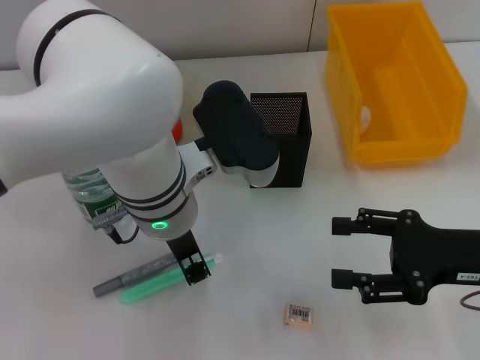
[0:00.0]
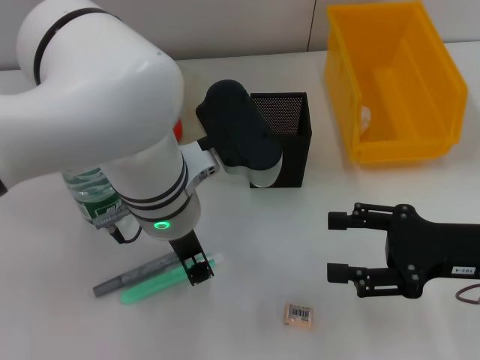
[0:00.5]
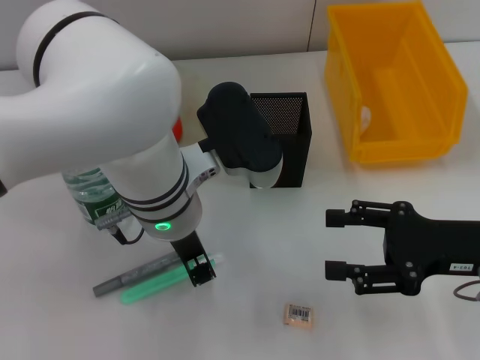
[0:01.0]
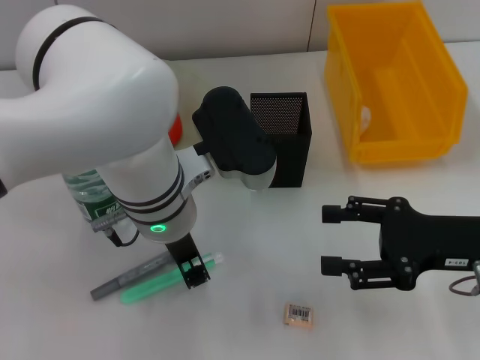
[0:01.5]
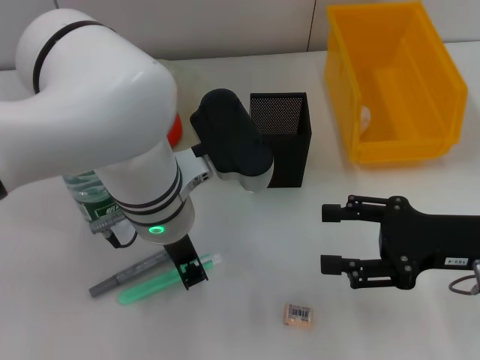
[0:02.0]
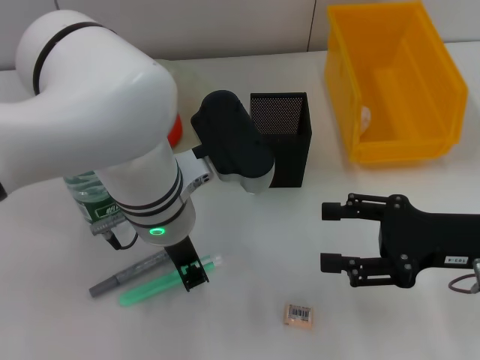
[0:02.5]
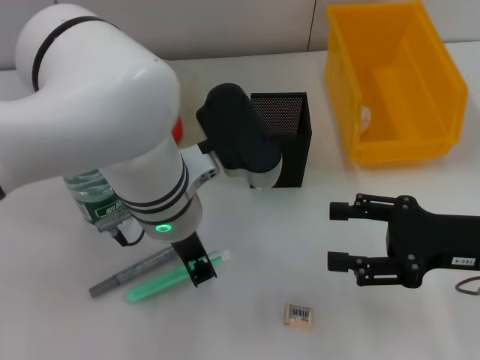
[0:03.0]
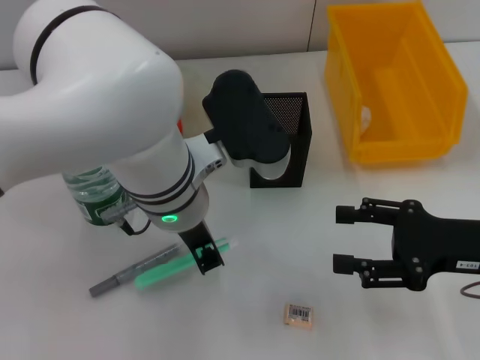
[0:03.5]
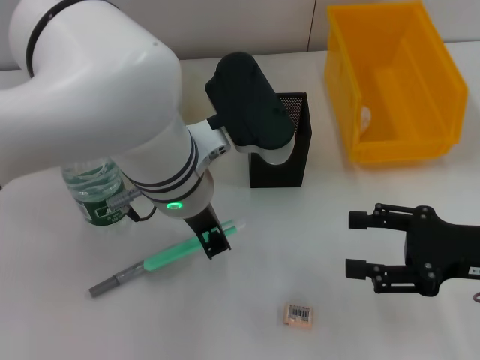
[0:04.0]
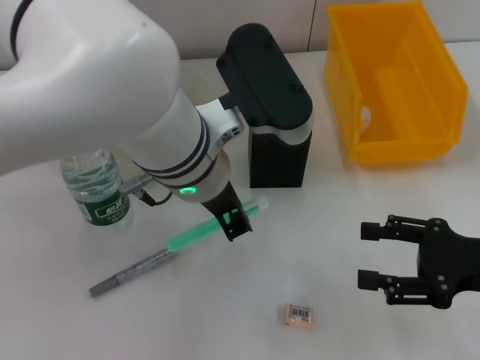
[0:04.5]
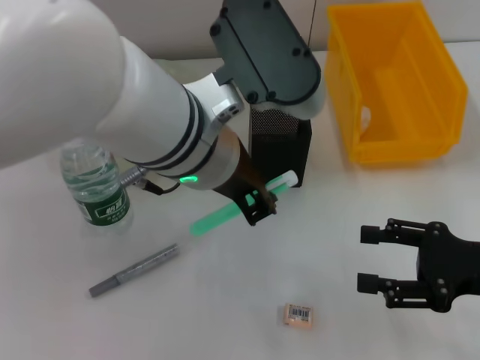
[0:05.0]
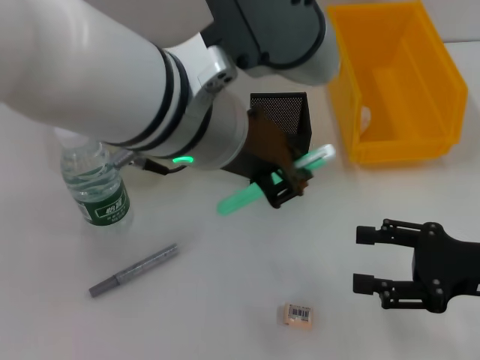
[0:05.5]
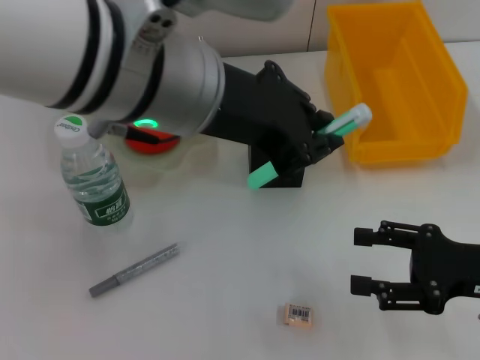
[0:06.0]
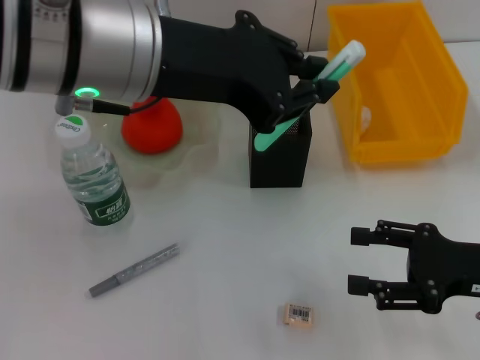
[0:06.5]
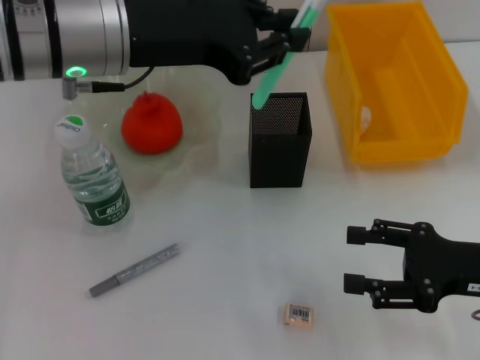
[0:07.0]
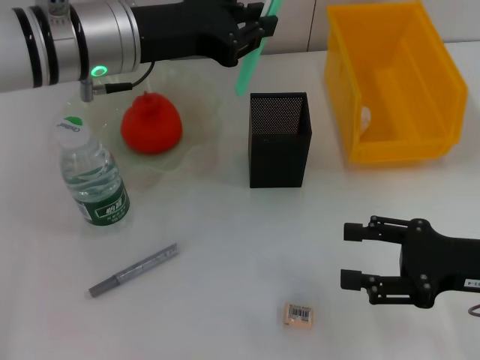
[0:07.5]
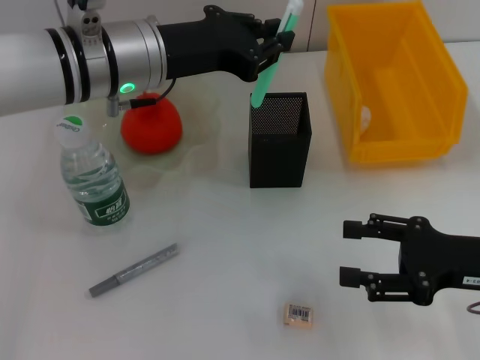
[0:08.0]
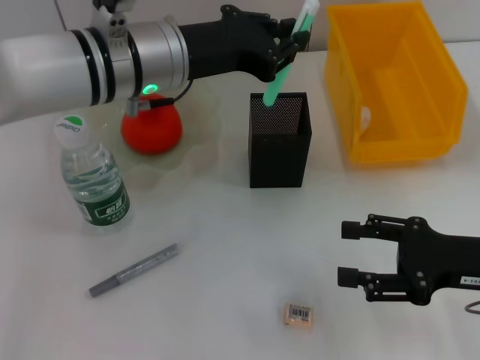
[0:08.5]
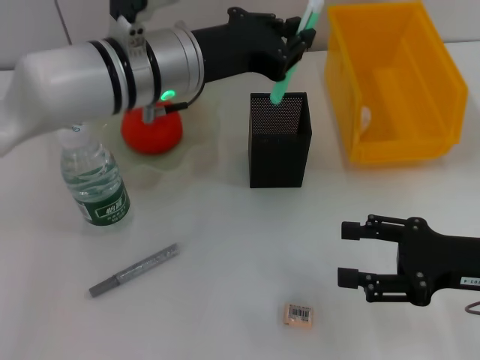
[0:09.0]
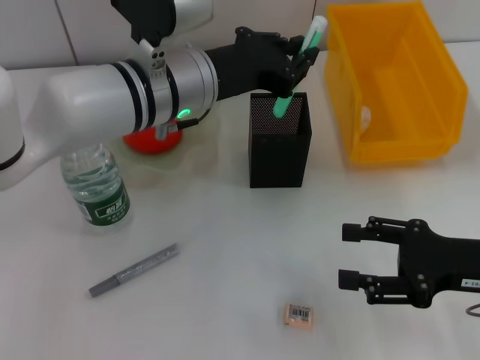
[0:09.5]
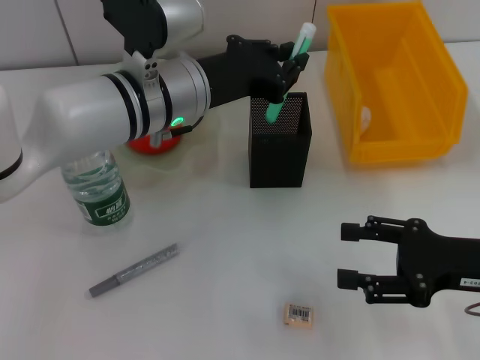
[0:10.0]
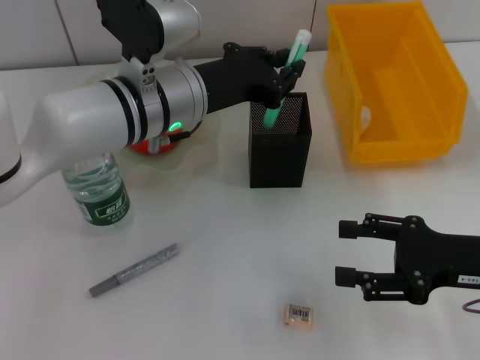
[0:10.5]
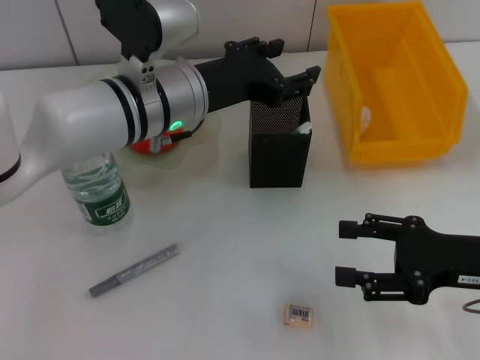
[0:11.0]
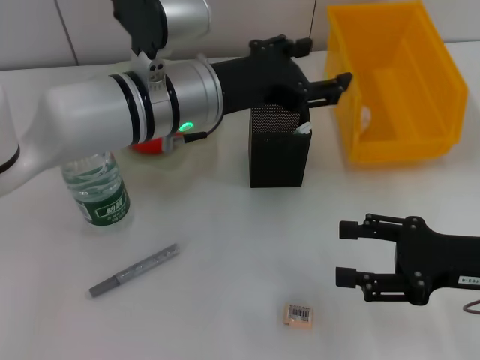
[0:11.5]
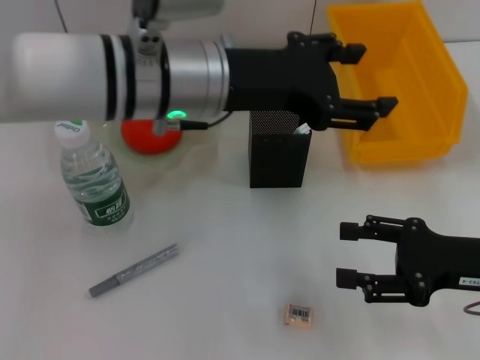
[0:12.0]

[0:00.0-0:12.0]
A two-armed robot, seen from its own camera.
Step, 0.0 to 2.0 s: Grab the blue utility knife with the left hand.
Step, 2.5 to 11.5 s: Place the blue utility knife into the pen holder with the left hand.
0.0 to 4.0 s: The grippers stay close to where they were, moving slightly.
4.0 to 6.0 s: The left gripper heads upward, covering approximately 10 cm.
6.0 to 8.0 s: The left gripper goes approximately 15 cm forward and downward.
8.0 to 10.0 s: The left gripper ends up roughly 5 cm from where it was.
10.0 to 12.0 s: The left gripper shifts roughly 5 cm upward, and opens.

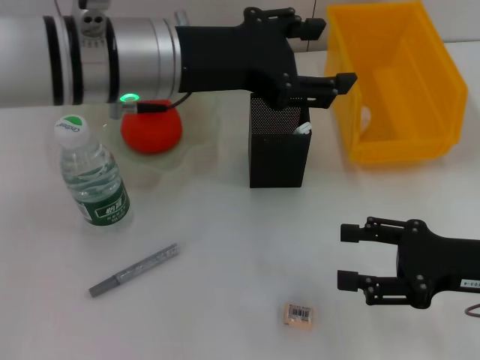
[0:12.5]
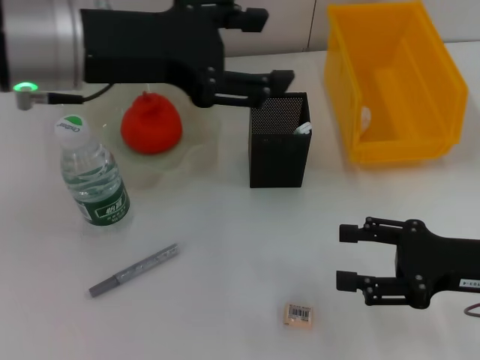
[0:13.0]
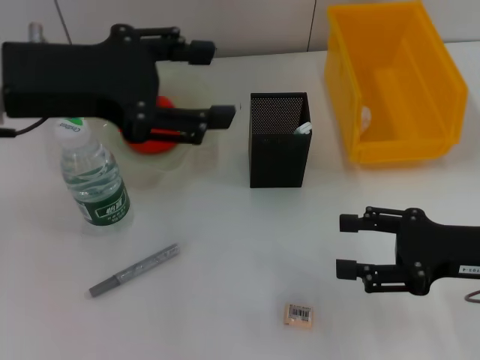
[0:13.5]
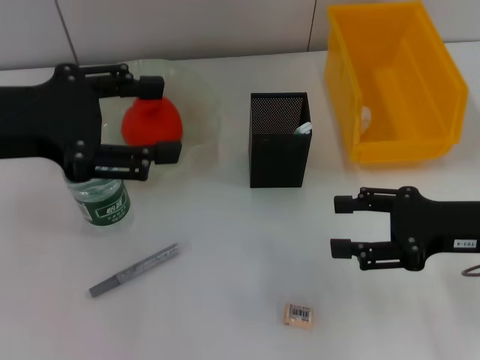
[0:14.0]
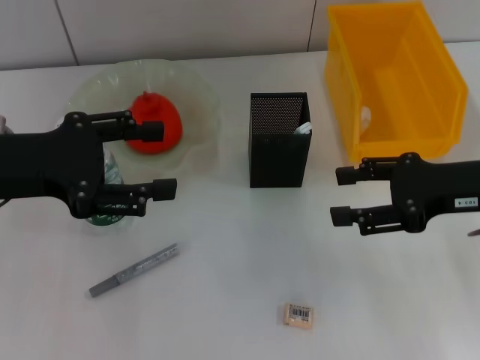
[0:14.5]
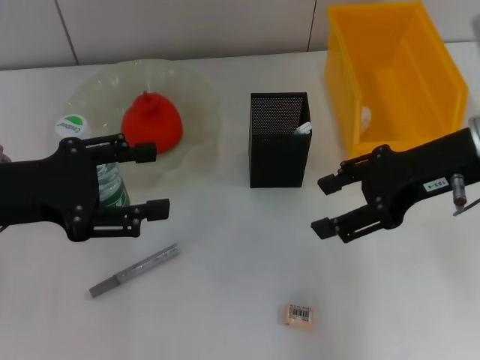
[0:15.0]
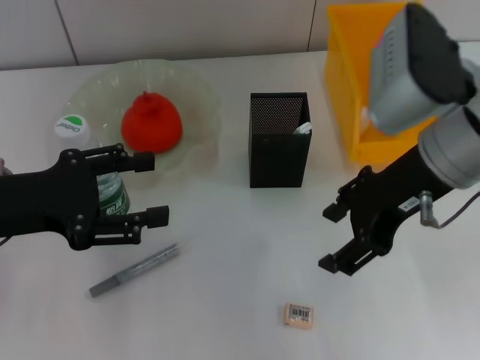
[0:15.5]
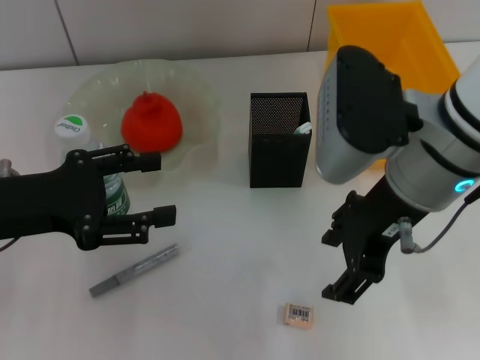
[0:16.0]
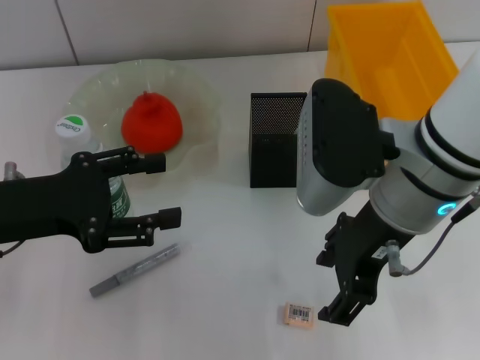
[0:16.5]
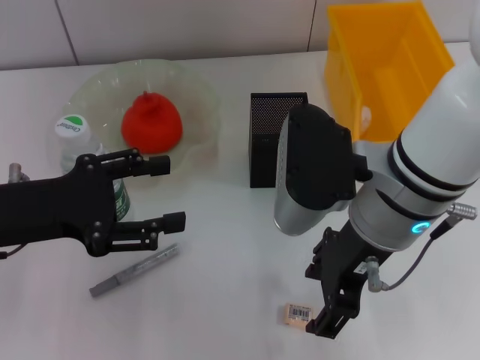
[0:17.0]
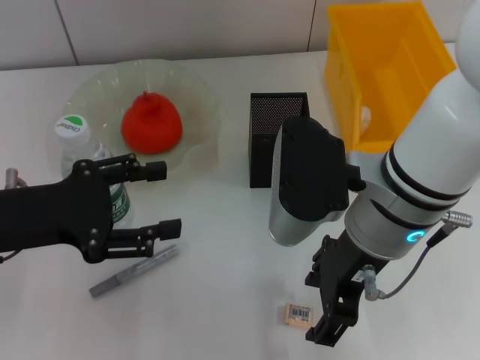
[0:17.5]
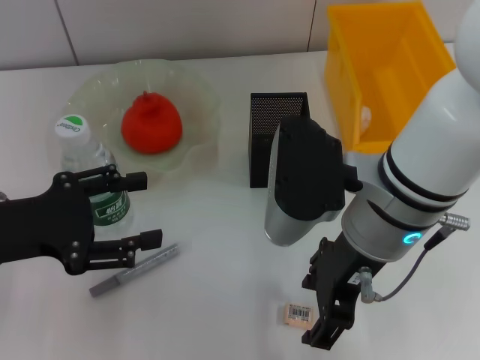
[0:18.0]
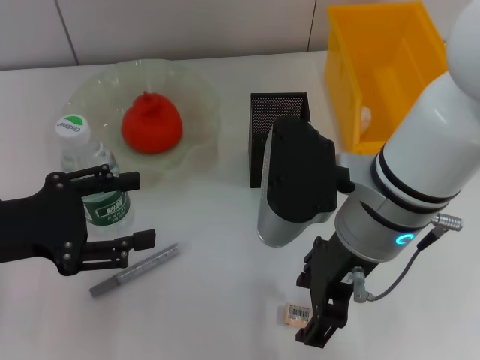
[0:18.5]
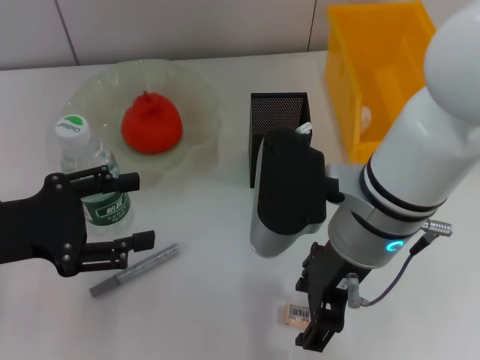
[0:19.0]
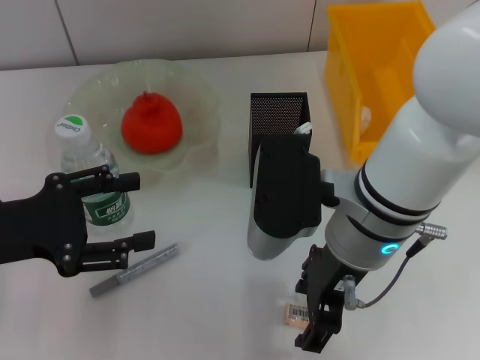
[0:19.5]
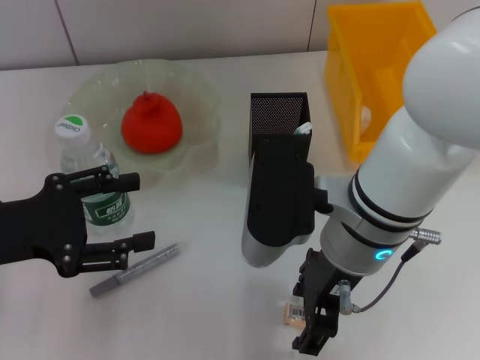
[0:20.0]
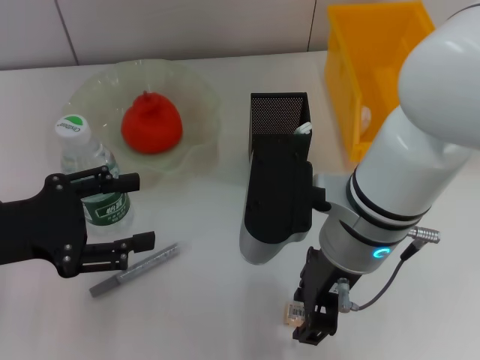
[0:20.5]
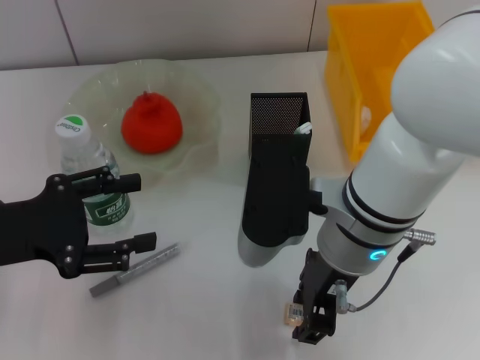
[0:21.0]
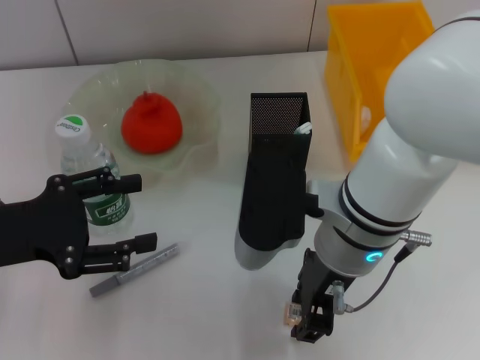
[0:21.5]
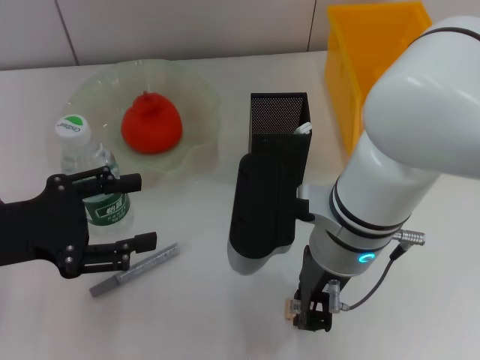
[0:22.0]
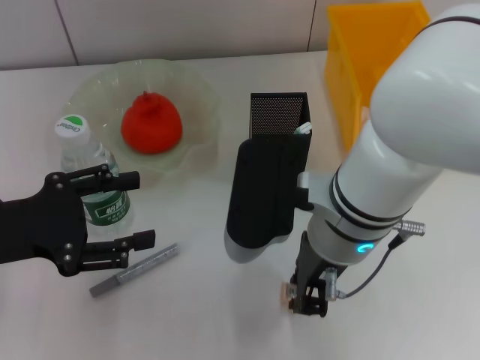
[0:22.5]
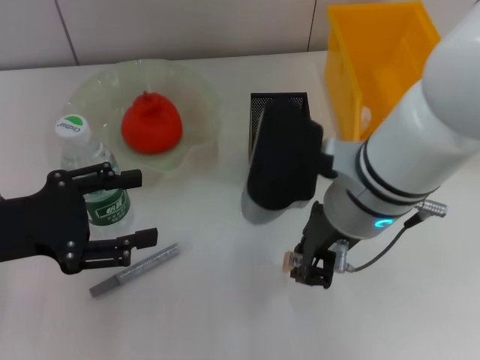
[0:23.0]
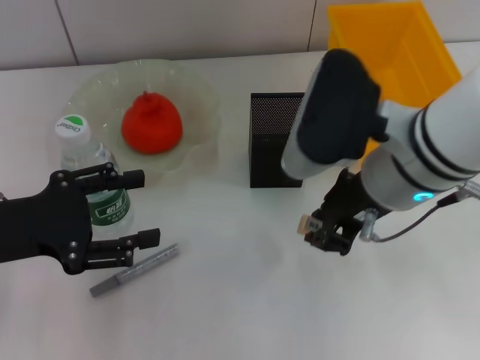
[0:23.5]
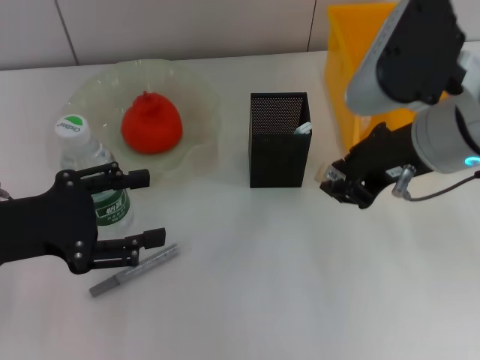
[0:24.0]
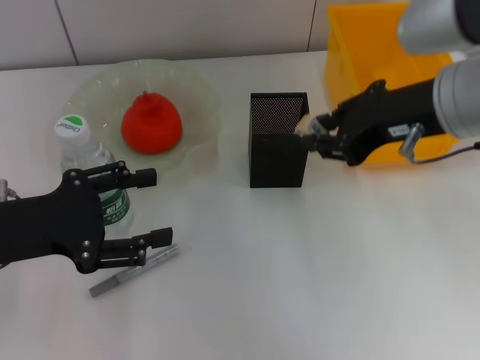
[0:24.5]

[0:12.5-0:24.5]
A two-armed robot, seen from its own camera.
Step, 12.5 to 22.0 s: Grab the eraser with the right hand.
12.5 to 14.5 s: The right gripper moves upward and forward, about 10 cm. The left gripper shifts some 15 cm to the left.
14.5 to 16.5 s: The right gripper is displaced to the left by about 15 cm.
18.5 to 20.5 s: The grippers move only a little.
20.5 to 22.5 s: The right gripper closes.
22.5 to 24.5 s: The right gripper travels to the right and upward by about 15 cm.

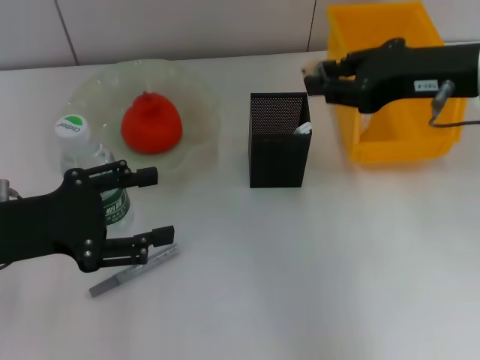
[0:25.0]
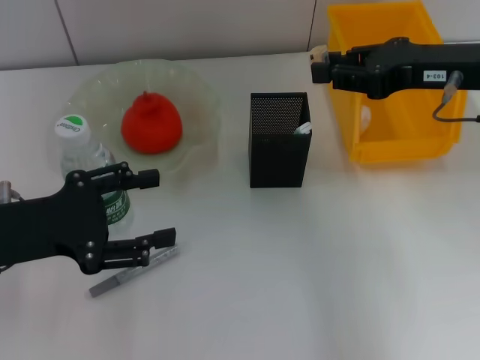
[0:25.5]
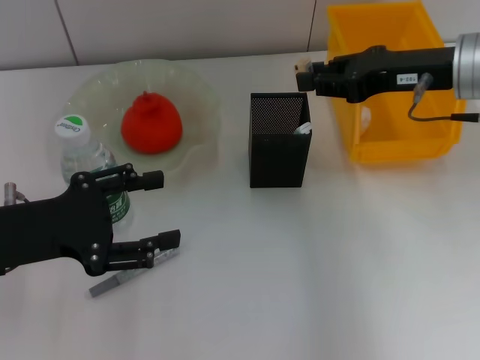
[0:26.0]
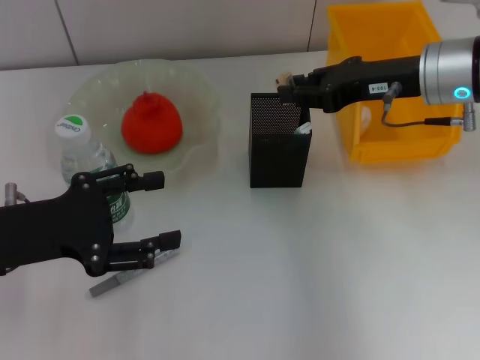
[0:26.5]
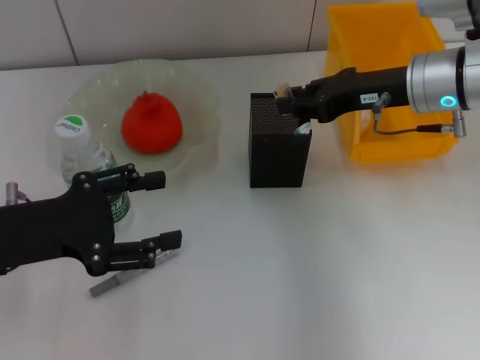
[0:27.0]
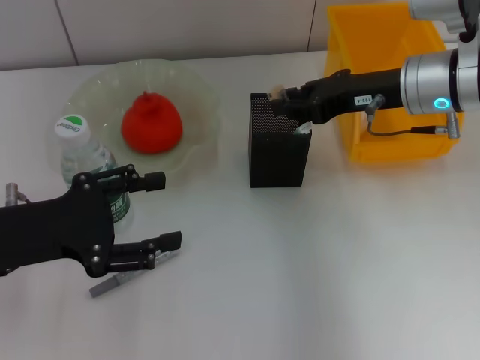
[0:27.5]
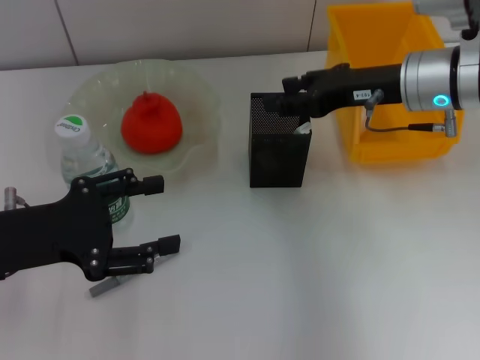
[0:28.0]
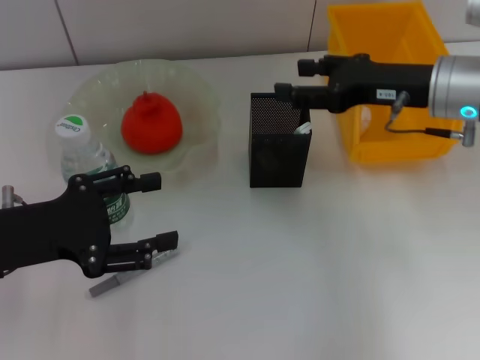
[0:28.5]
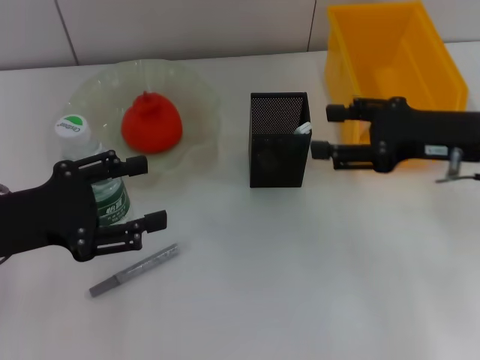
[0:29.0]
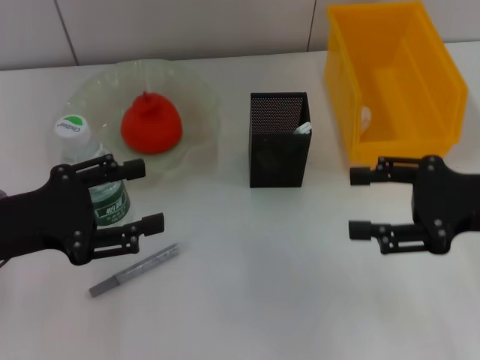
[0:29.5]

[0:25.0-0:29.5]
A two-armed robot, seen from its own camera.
Step, 25.0 to 27.5 s: Put the eraser into the pen holder with the right hand.
25.0 to 27.0 s: The right gripper shifts some 10 cm downward and forward.
27.0 to 29.5 s: The right gripper travels backward and to the right by roughly 15 cm, and opens its fingers.
